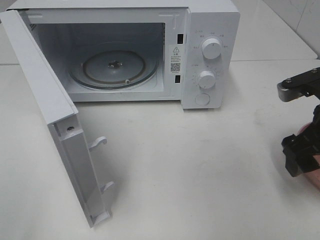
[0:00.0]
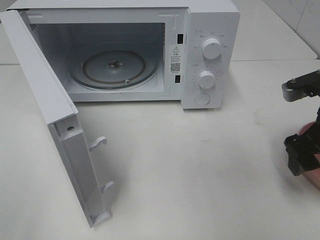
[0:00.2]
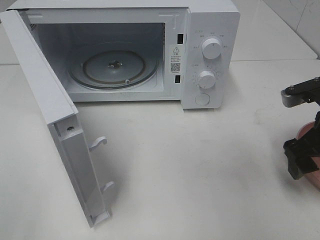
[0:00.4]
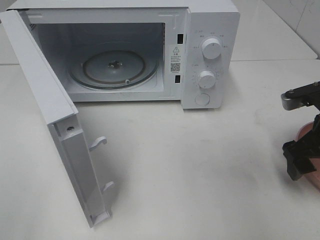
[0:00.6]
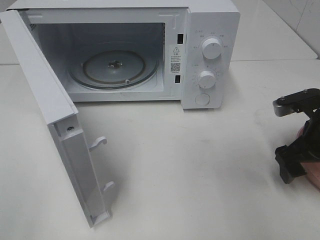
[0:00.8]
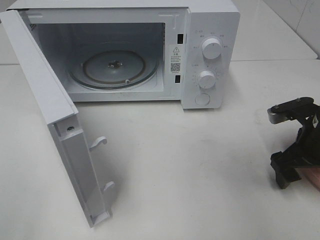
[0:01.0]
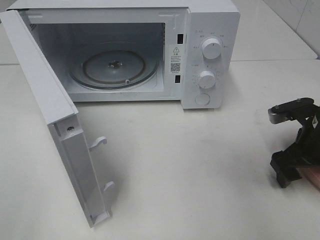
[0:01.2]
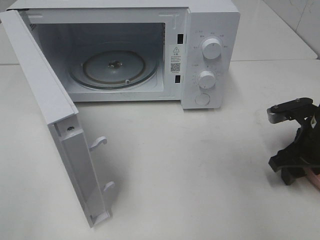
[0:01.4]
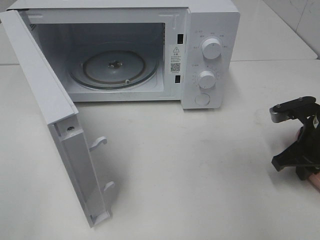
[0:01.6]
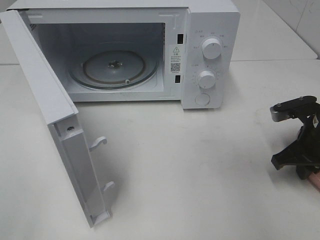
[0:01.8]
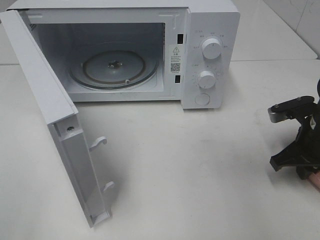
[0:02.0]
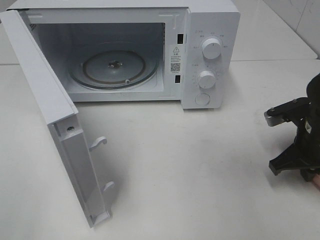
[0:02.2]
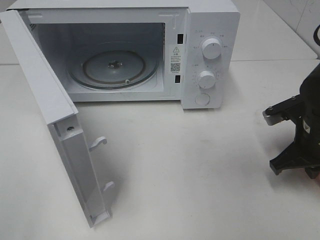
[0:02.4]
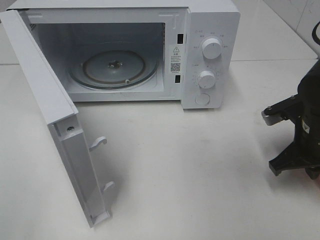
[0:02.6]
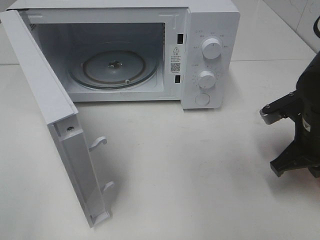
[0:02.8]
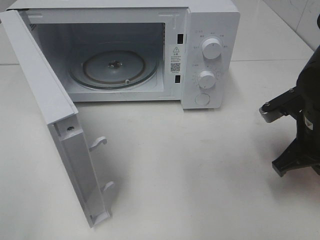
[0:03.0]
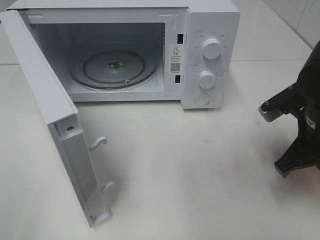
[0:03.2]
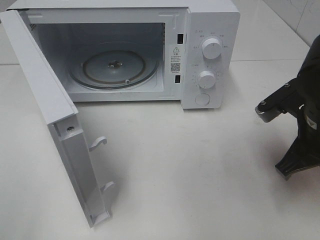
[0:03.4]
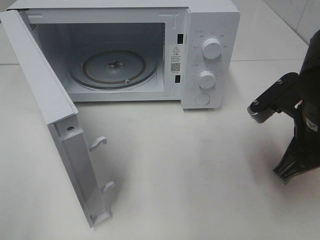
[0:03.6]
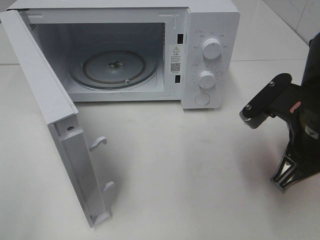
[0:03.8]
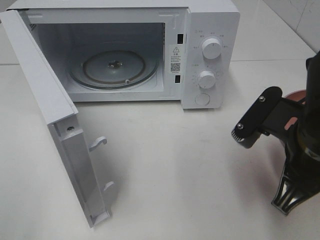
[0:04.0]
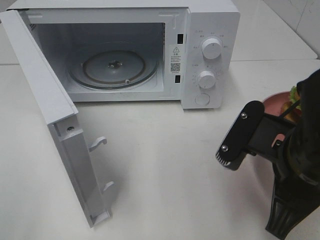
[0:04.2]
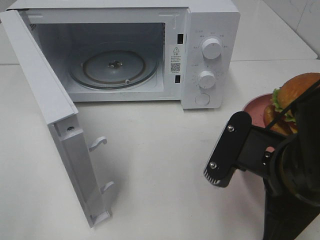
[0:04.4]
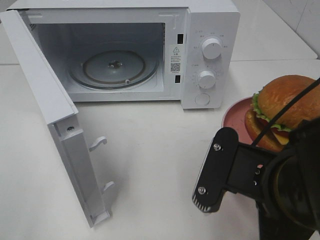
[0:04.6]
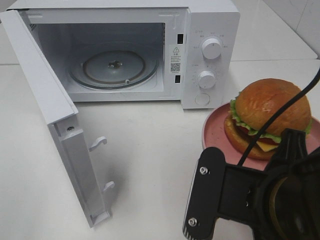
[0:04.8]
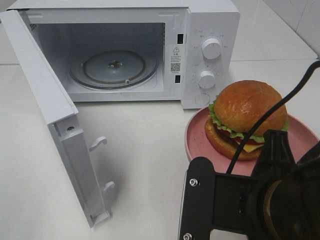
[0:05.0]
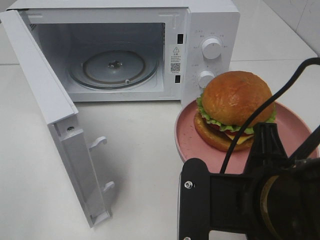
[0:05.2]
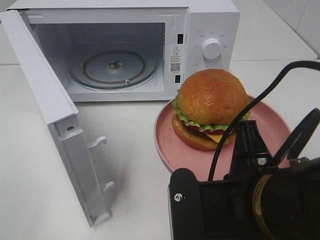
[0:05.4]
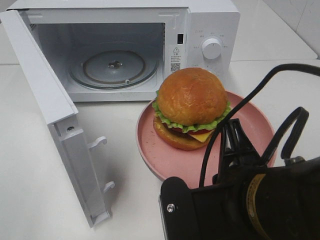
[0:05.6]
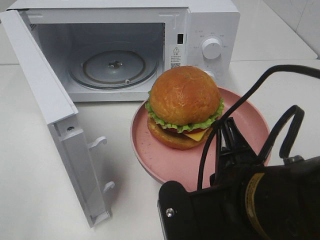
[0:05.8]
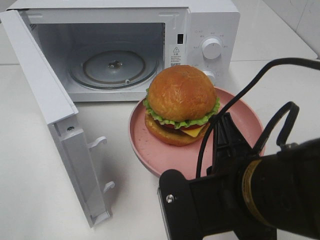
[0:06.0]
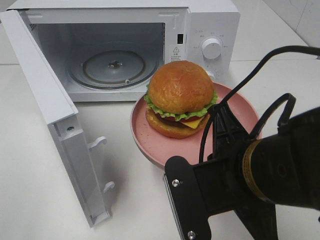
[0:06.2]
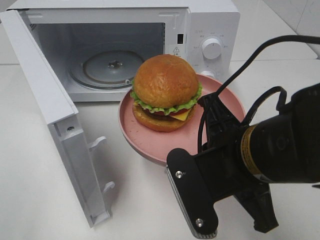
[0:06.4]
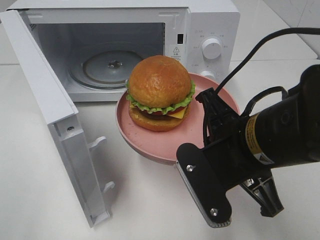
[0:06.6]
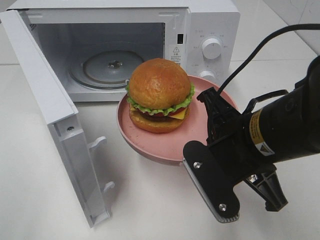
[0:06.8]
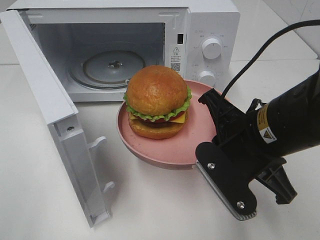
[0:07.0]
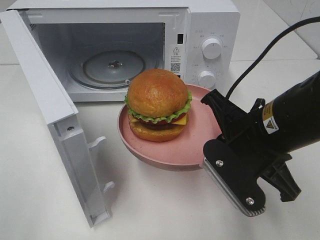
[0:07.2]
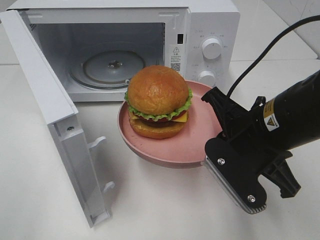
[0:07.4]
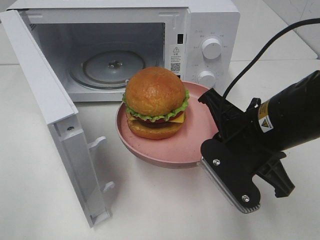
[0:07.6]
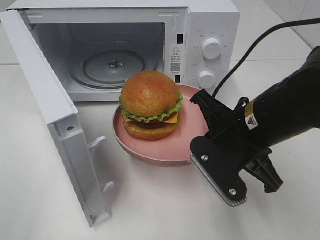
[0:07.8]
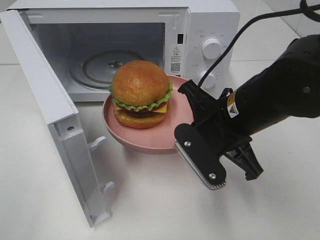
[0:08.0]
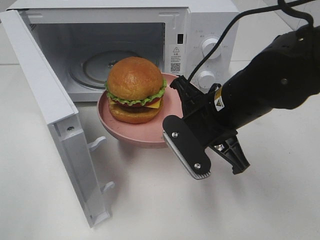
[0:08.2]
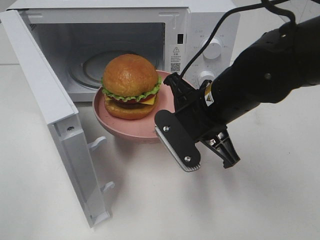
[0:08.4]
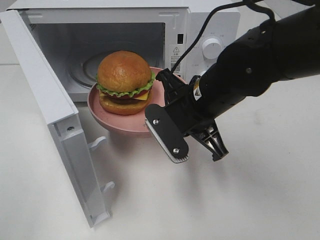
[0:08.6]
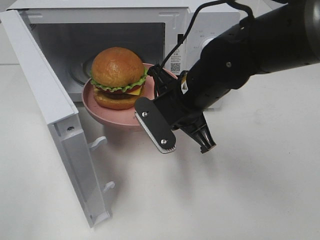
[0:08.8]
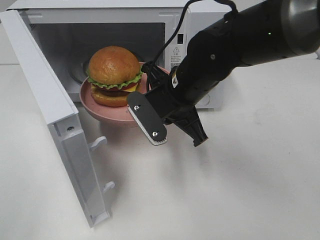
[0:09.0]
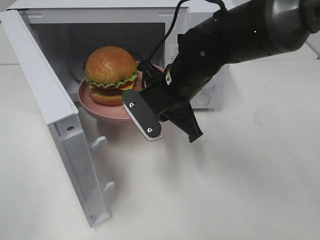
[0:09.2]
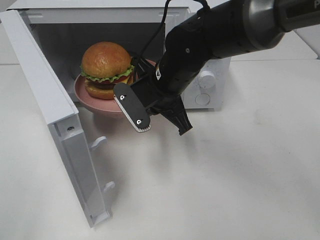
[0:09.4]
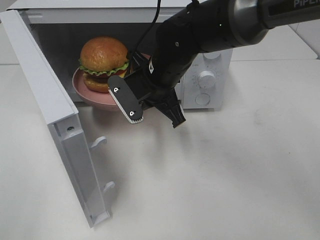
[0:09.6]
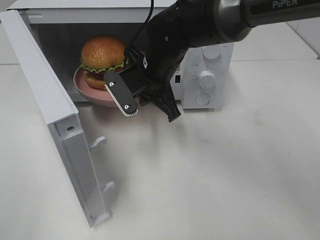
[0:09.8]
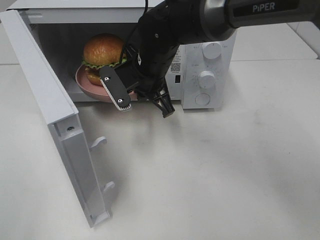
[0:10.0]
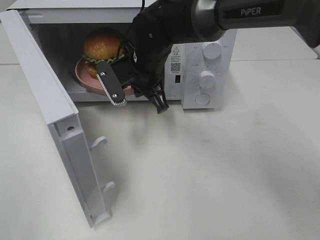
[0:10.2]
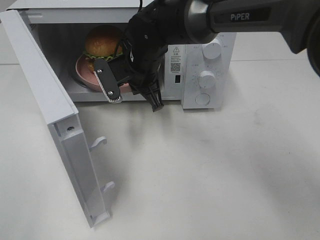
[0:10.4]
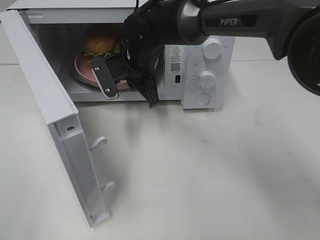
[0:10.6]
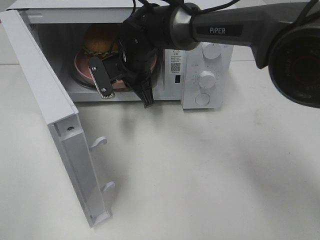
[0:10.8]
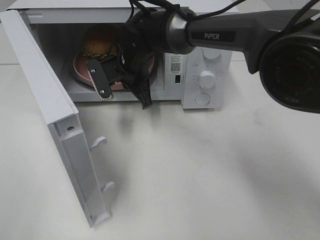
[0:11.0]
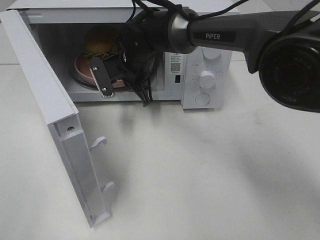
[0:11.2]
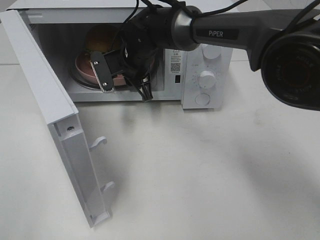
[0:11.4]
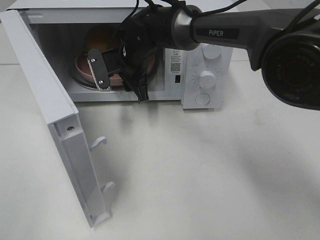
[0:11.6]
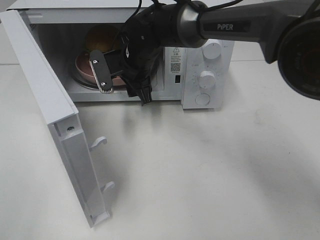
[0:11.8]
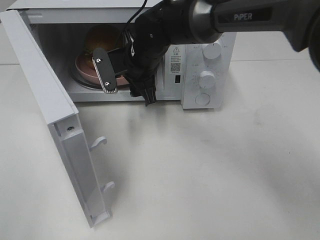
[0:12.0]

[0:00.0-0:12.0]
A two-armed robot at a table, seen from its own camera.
Task of the whole recording: Heat the burger.
Step, 0:00.0 to 0:03.0: Right hand: grab the plate with the hamburger.
Step, 0:03.2 to 0:11.8: Right hand: place the plate in the microwave.
0:00.0 to 0:01.6: The right gripper shifts about 10 cm downward, and closes up.
0:01.6 to 0:03.0: The right gripper moves roughly 5 cm.
0:03.0 to 0:04.4: The right gripper goes approximately 15 cm backward and to the left.
0:06.0 to 0:07.6: The right gripper travels forward by approximately 10 cm.
0:07.6 to 0:09.0: The right gripper moves forward and to the left, approximately 15 cm.
0:09.0 to 0:10.4: The right gripper heads forward and to the left, covering some 10 cm.
0:10.4 to 0:12.0: The right gripper opens up.

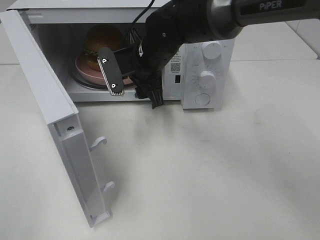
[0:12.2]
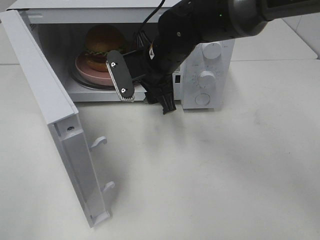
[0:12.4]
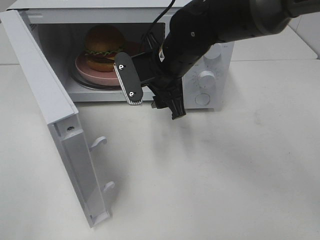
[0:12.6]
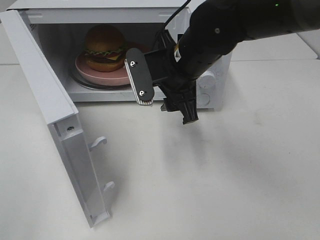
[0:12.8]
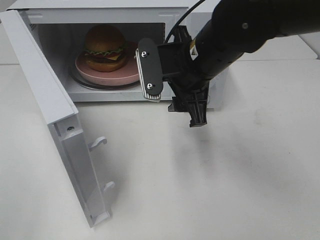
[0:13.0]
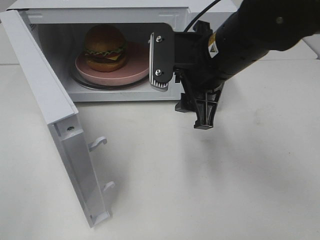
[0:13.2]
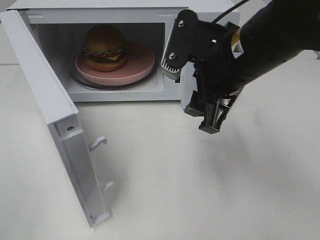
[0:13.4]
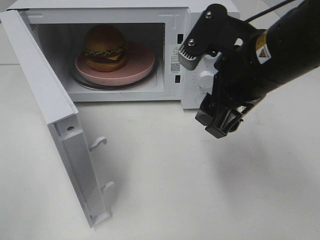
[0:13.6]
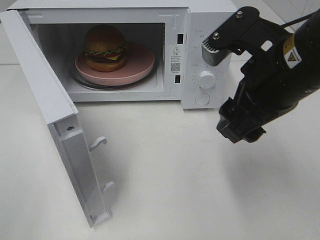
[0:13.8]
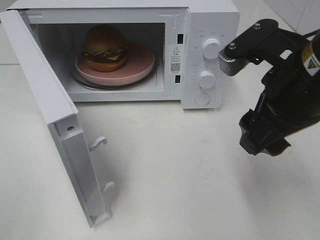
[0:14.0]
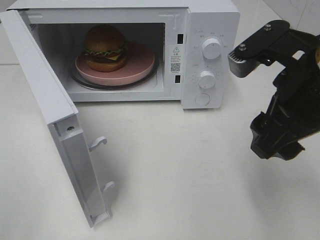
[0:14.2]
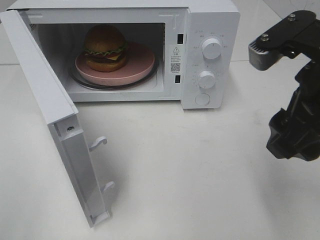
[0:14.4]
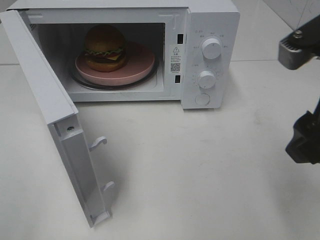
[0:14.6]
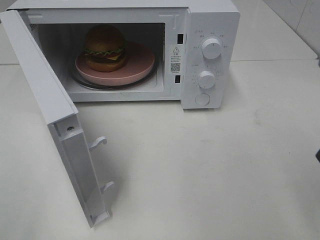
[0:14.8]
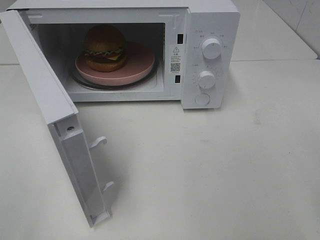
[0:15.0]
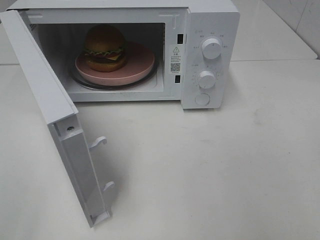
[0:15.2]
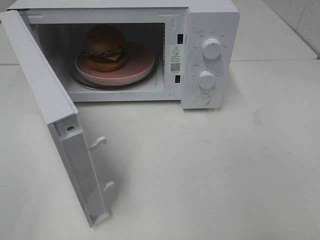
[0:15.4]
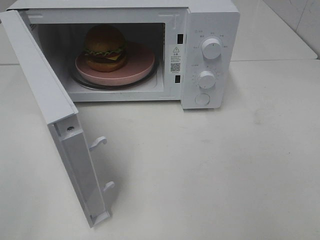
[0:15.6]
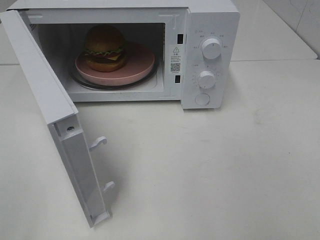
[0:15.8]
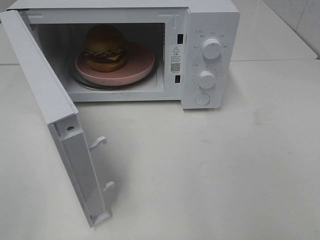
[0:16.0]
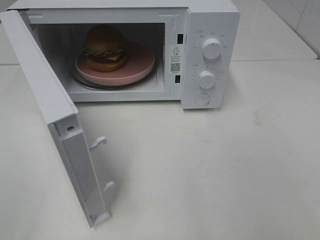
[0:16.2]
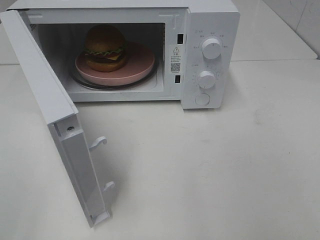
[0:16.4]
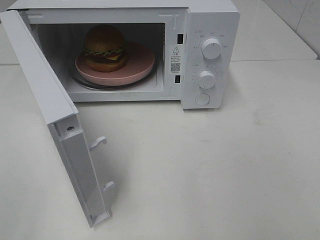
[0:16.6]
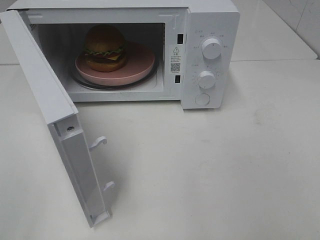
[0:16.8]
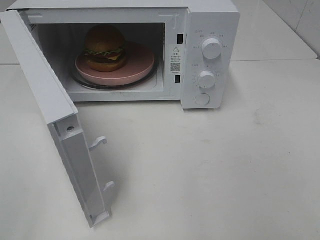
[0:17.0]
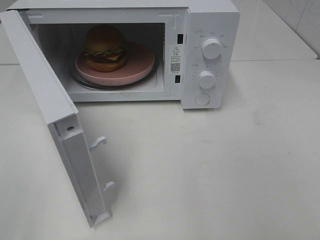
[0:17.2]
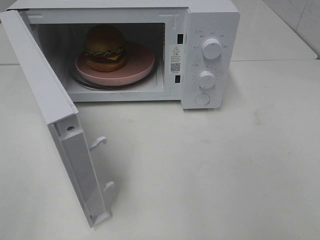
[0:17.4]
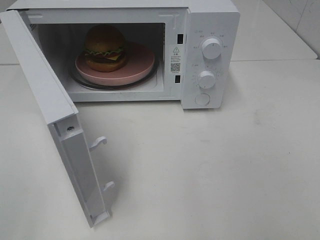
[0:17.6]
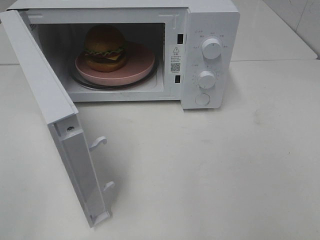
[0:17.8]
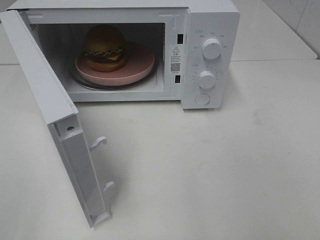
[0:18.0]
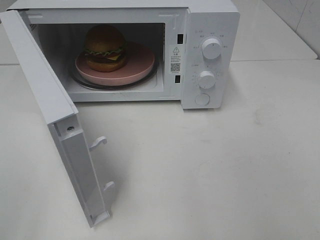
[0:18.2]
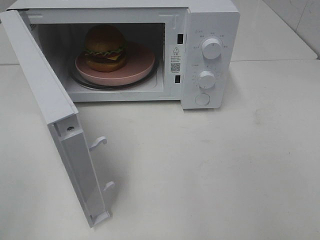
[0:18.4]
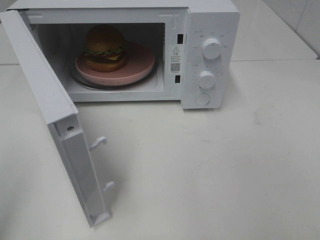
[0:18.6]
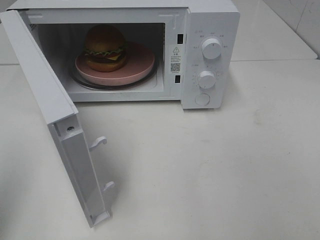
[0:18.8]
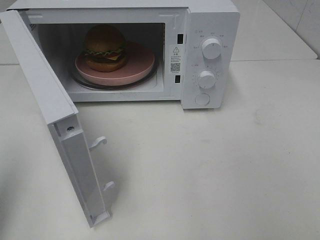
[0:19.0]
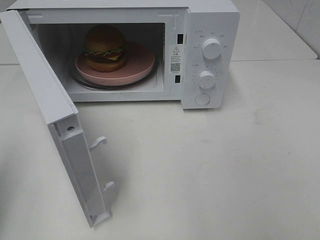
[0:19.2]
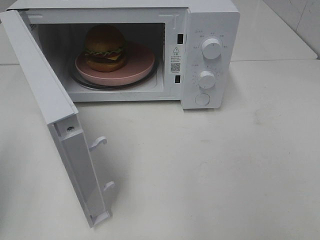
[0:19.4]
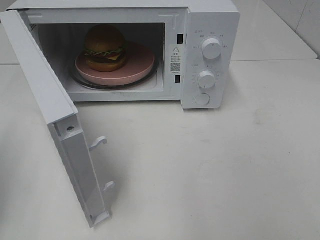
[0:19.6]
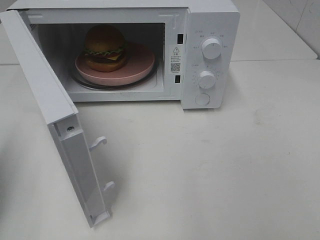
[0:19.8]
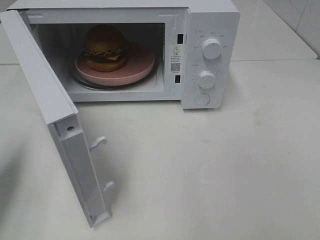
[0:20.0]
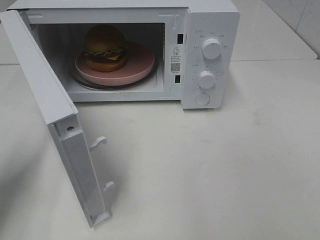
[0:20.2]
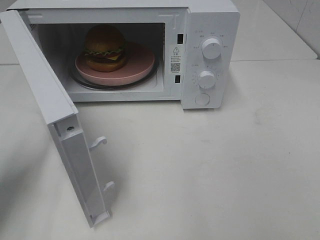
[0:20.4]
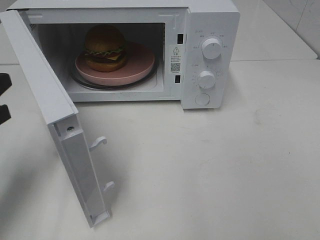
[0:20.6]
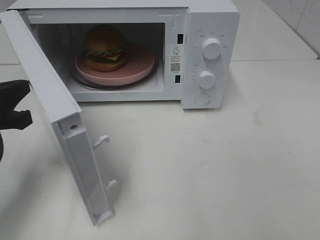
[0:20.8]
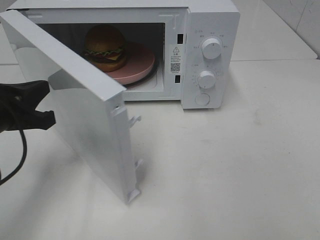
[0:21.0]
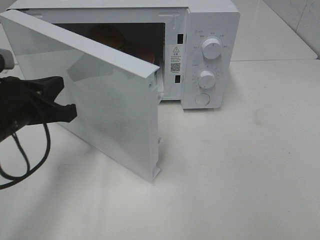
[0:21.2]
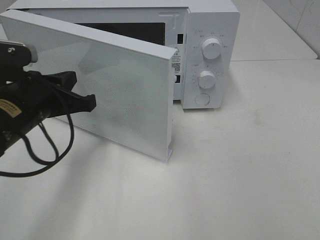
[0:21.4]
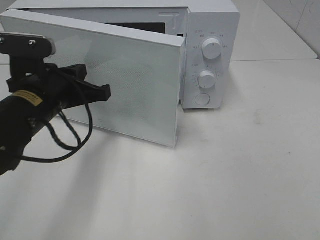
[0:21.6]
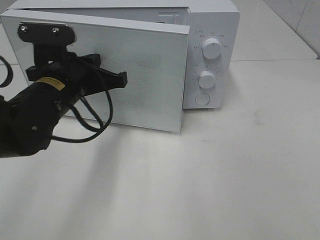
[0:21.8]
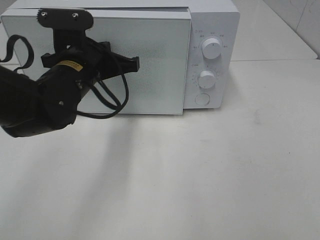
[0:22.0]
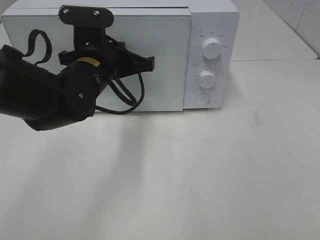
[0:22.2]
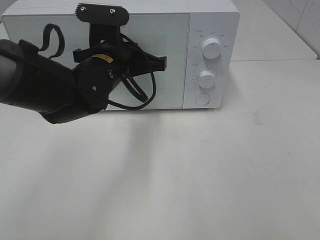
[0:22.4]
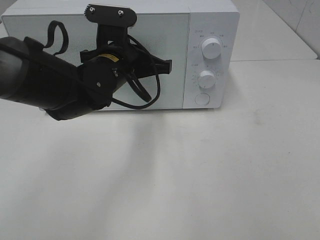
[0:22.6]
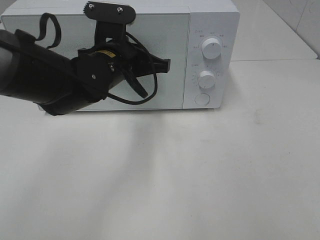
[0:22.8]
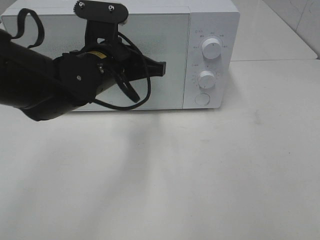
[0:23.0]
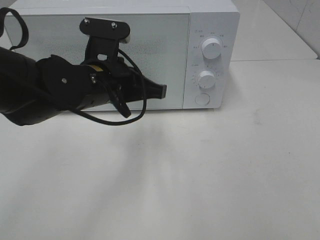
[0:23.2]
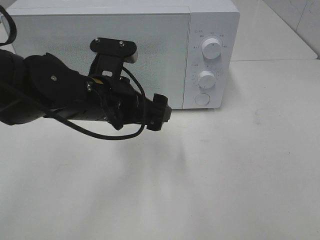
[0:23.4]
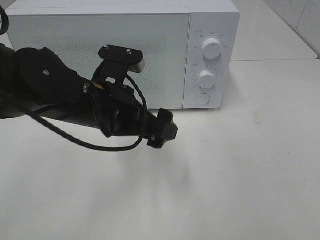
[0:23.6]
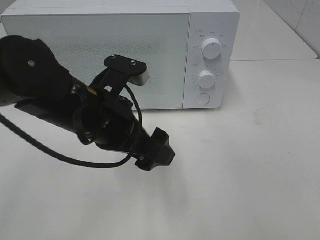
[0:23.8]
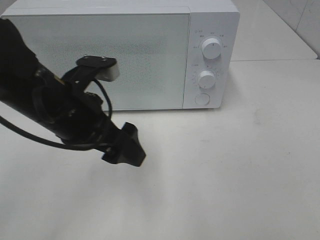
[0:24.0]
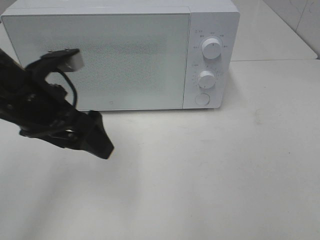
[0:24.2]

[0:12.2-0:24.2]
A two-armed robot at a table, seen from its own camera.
Task of the whole recording: Heat the burger.
Step, 0:12.2 to 0:23.2: Left hand: close the microwave door.
0:12.2 to 0:13.8: The right gripper travels backward, to the right and upward by roughly 25 cm.
0:13.8 to 0:15.2: The right gripper moves to the right and backward, about 20 cm.
0:18.2 to 0:19.8: The left gripper moves forward and downward, about 15 cm, and closes.
0:19.8 to 0:21.2: The left gripper is displaced to the right, downward and forward by some 15 cm.
0:21.2 to 0:22.6: The left gripper moves to the right and forward, about 15 cm.
0:22.6 to 0:24.2: The left gripper heads to the left and backward, covering about 15 cm, and opens up.
